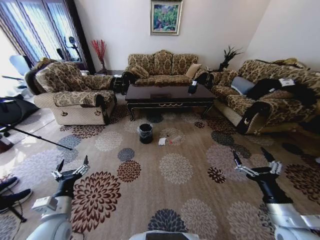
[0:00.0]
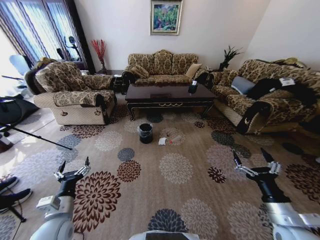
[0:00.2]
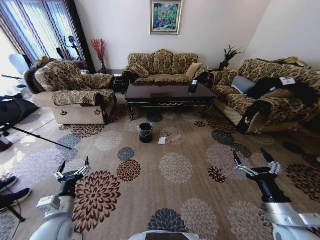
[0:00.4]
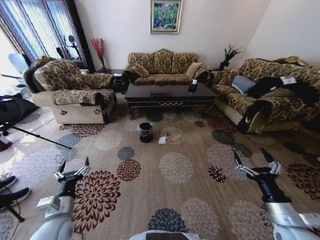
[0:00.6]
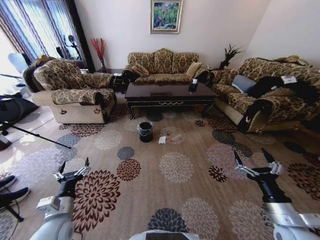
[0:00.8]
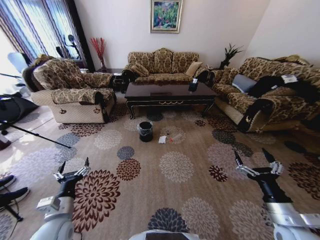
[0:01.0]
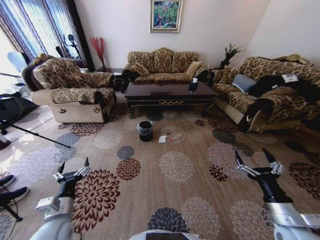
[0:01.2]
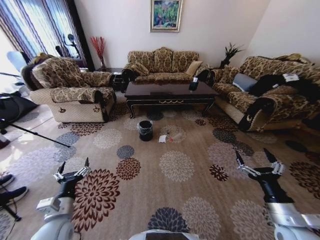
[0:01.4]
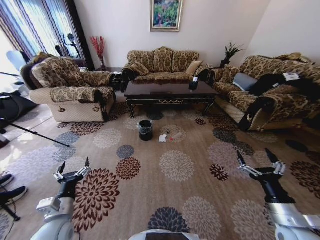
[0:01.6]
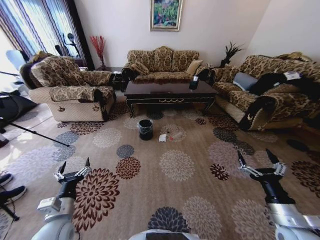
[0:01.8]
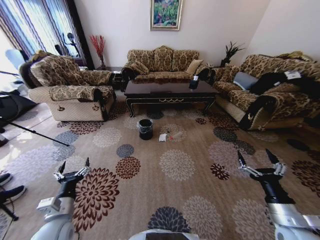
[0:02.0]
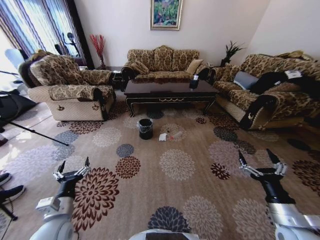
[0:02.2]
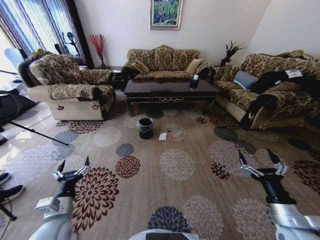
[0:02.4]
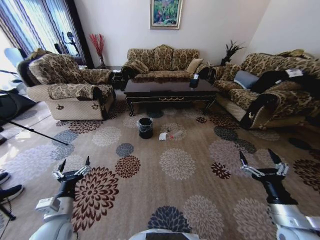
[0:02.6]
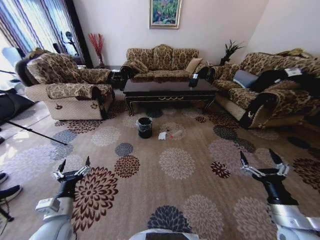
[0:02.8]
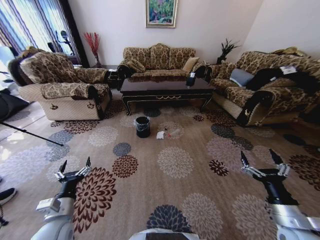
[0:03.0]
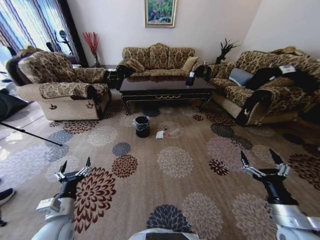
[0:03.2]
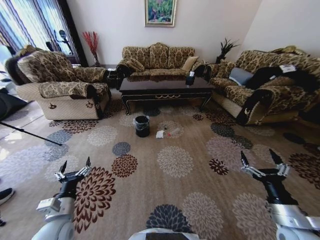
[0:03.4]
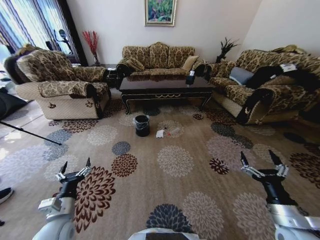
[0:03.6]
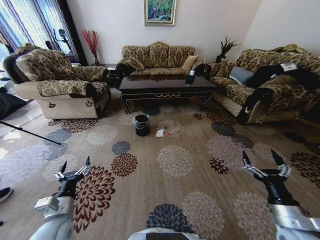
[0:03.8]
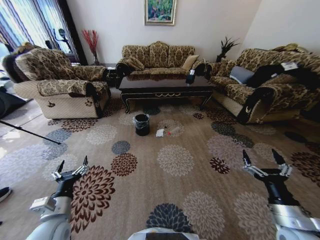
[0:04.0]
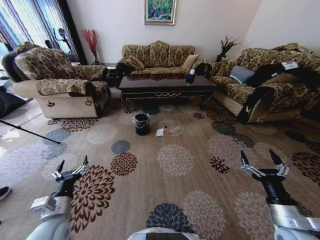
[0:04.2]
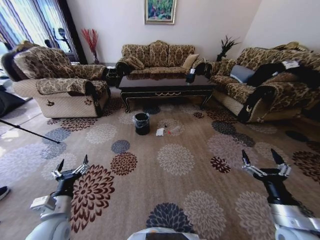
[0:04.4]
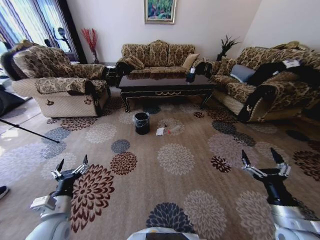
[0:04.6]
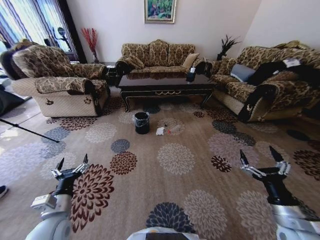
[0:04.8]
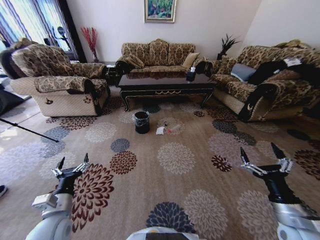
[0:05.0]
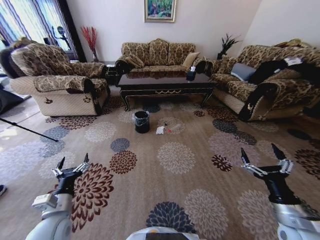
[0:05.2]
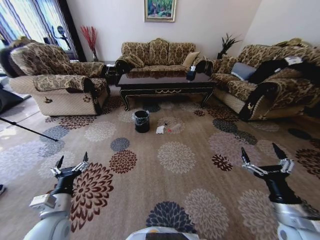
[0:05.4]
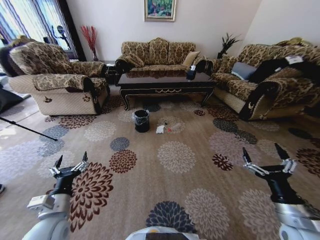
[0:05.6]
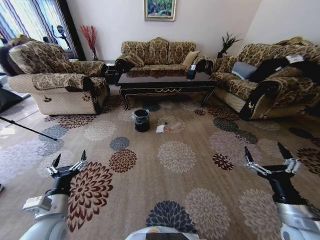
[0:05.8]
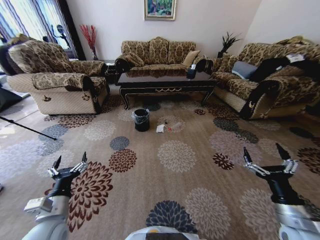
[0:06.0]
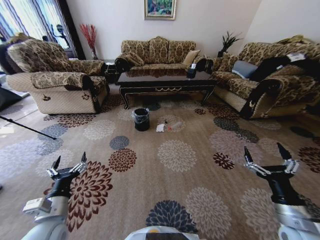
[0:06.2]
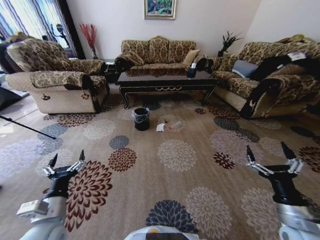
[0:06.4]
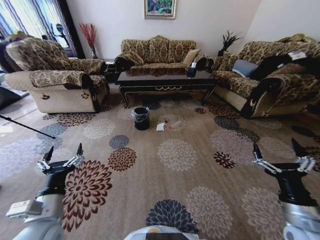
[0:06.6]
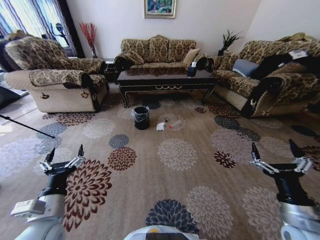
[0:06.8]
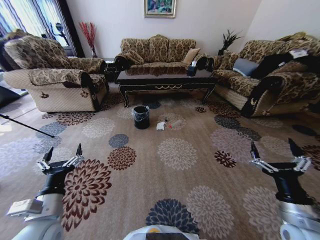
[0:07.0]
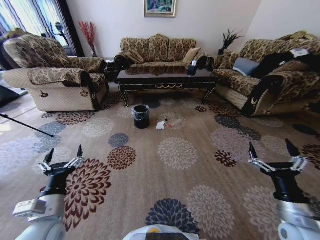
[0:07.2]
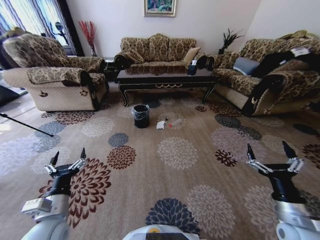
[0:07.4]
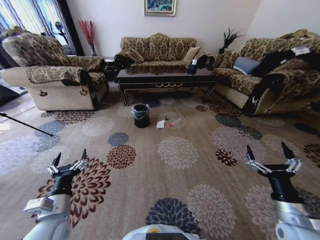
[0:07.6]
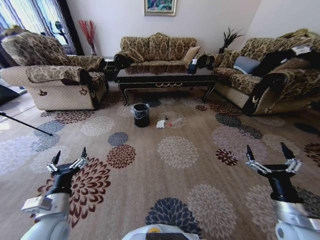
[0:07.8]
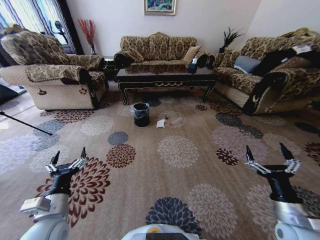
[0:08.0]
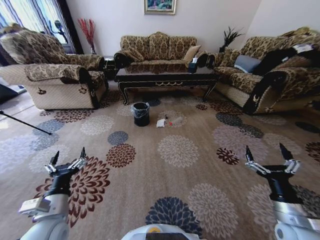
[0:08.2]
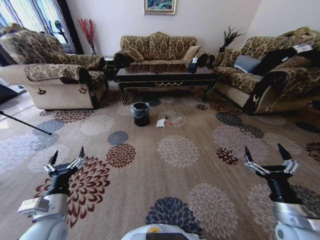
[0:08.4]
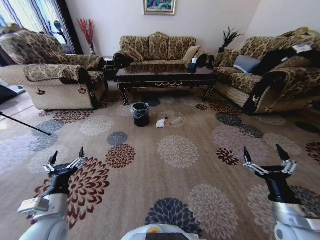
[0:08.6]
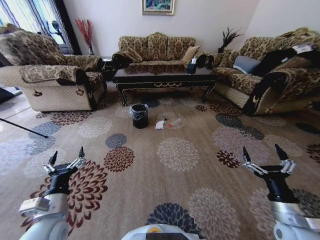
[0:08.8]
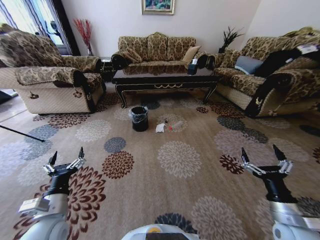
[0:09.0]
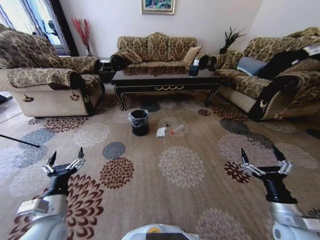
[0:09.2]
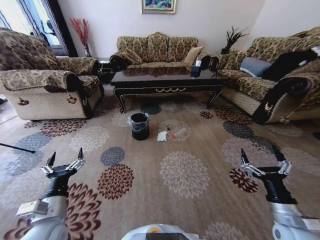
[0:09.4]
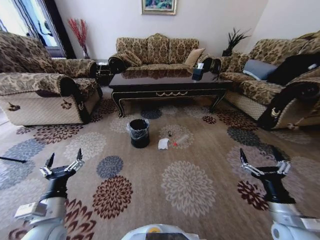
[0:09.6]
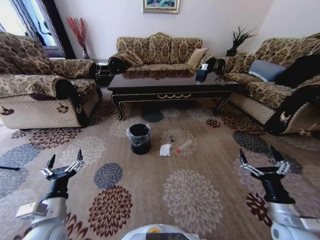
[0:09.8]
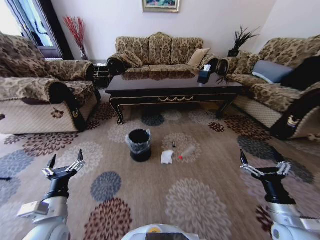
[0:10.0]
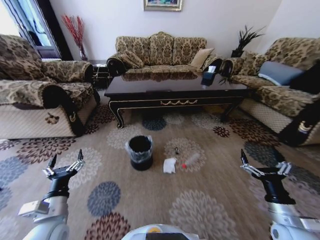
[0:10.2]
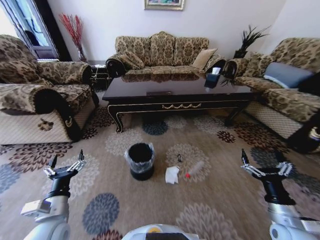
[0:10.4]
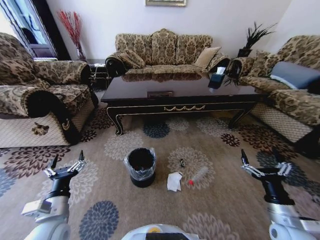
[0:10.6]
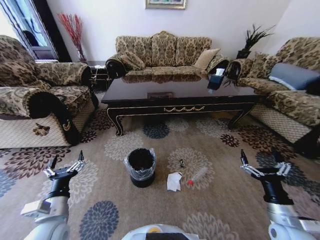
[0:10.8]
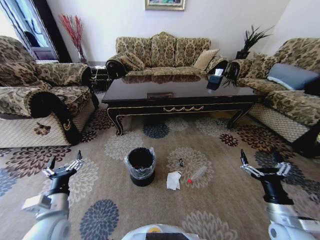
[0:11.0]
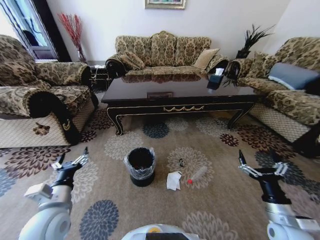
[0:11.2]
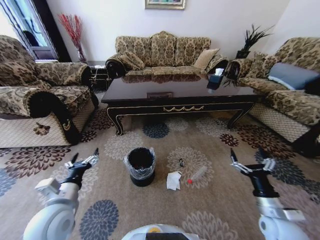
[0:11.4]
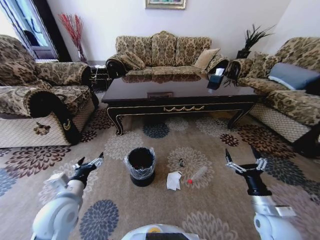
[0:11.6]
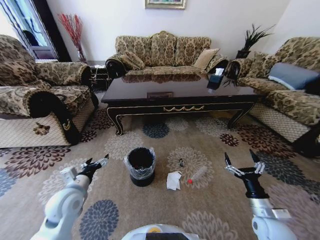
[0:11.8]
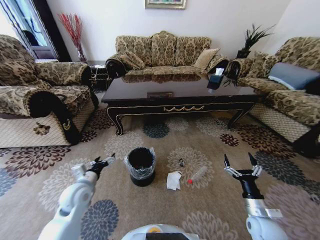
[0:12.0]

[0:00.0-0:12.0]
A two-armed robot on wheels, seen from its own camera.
Task of the whole recording: Move to the front of the table and pick up the trash from the floor, then place it into the trash bin.
0:10.4 to 0:12.0: The left gripper is displaced forward by approximately 10 cm. The right gripper shifts approximately 5 cm downward.

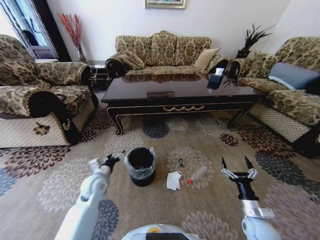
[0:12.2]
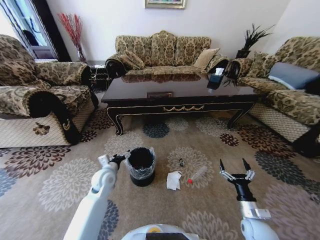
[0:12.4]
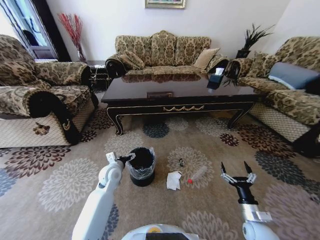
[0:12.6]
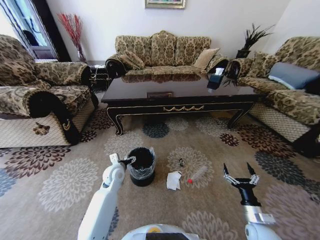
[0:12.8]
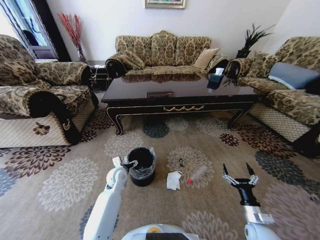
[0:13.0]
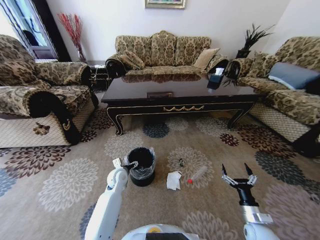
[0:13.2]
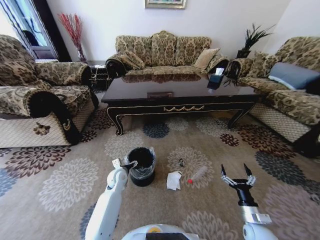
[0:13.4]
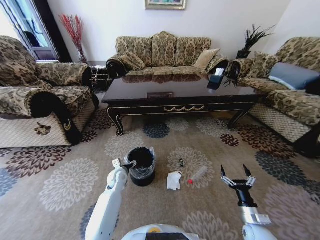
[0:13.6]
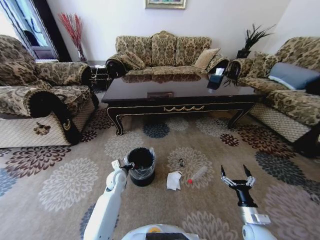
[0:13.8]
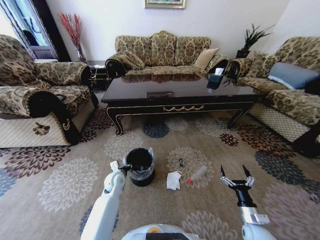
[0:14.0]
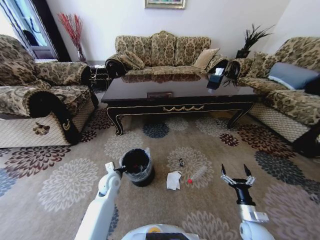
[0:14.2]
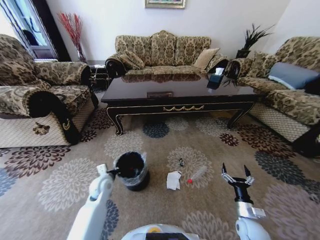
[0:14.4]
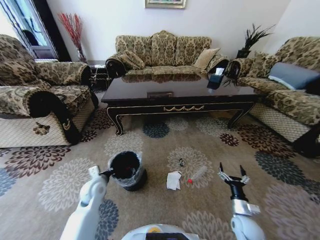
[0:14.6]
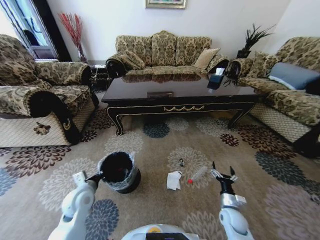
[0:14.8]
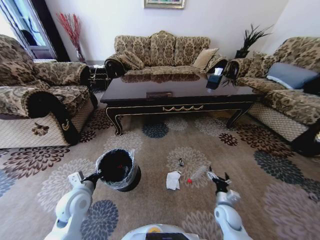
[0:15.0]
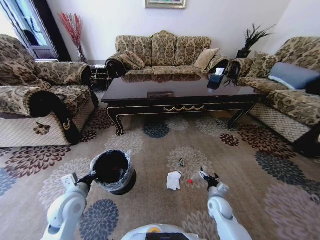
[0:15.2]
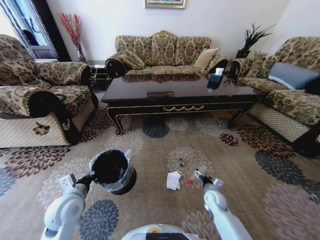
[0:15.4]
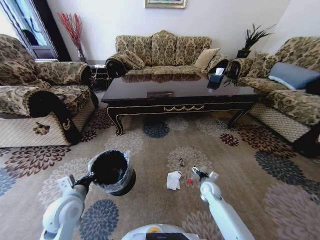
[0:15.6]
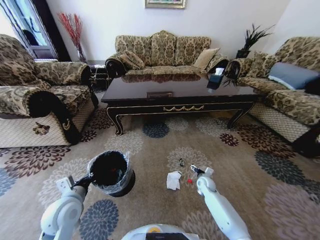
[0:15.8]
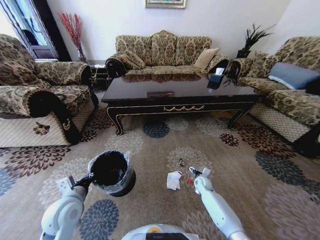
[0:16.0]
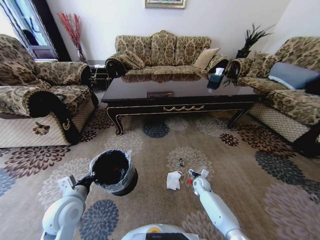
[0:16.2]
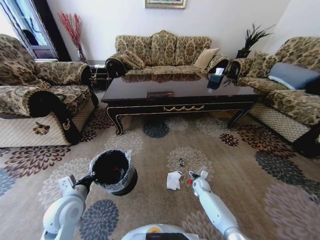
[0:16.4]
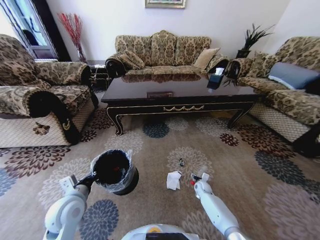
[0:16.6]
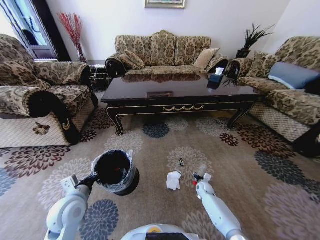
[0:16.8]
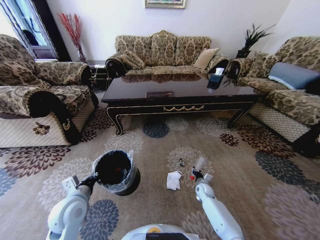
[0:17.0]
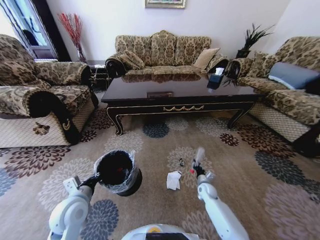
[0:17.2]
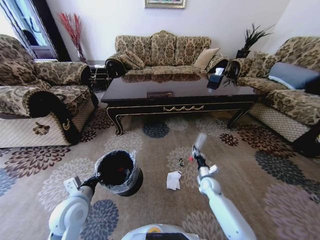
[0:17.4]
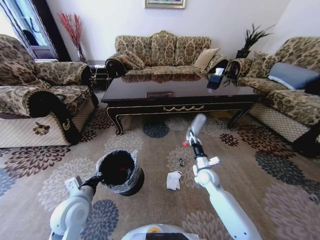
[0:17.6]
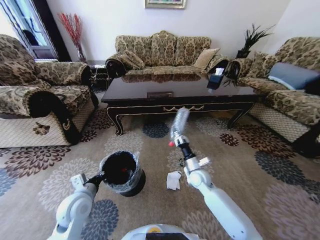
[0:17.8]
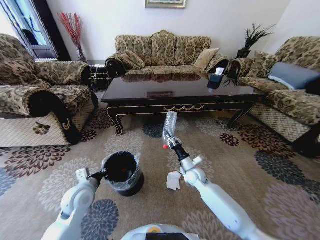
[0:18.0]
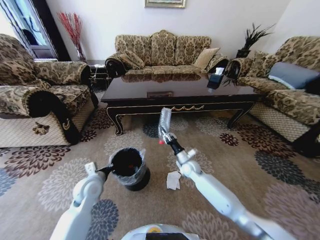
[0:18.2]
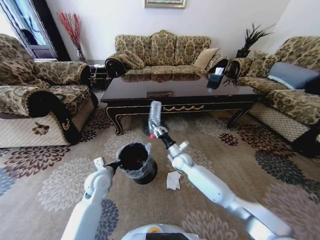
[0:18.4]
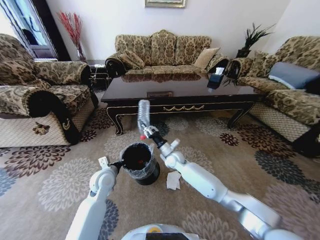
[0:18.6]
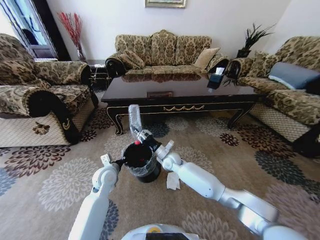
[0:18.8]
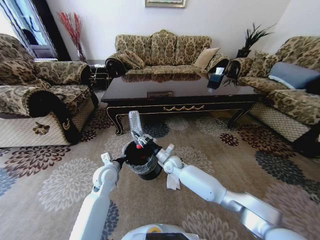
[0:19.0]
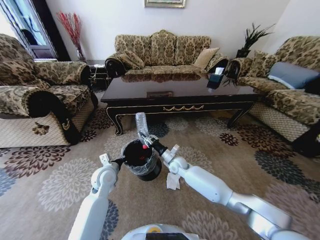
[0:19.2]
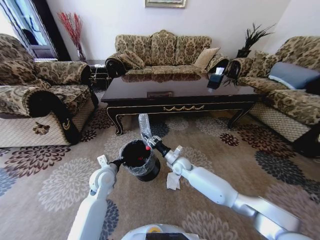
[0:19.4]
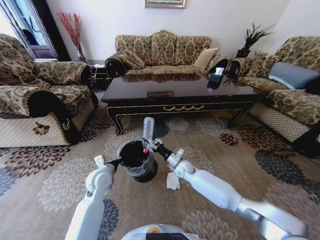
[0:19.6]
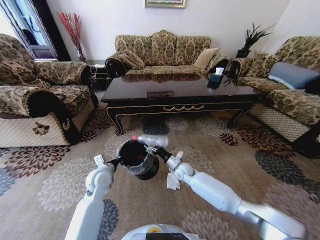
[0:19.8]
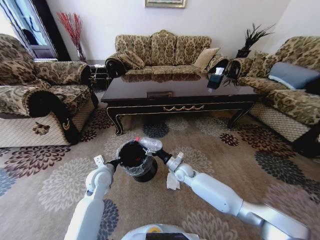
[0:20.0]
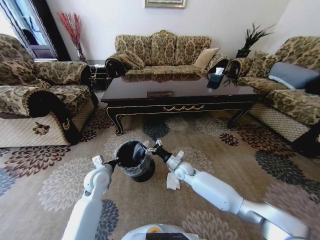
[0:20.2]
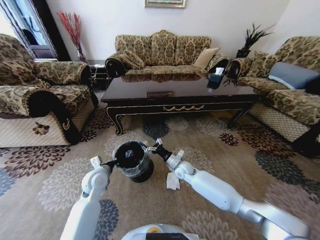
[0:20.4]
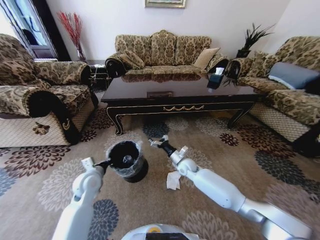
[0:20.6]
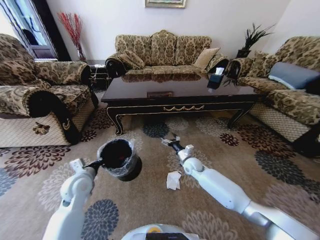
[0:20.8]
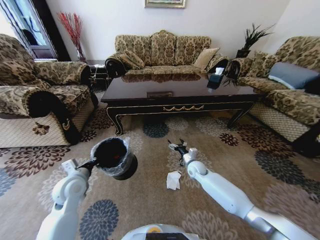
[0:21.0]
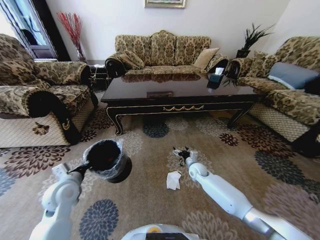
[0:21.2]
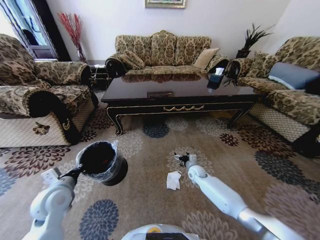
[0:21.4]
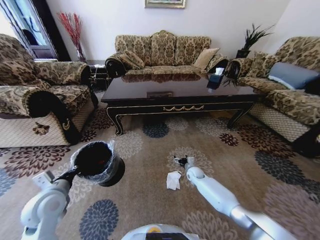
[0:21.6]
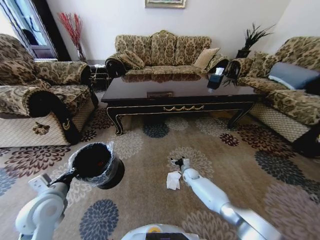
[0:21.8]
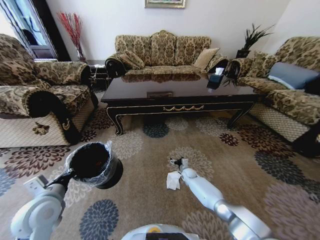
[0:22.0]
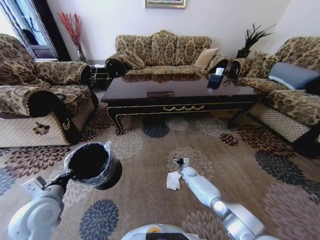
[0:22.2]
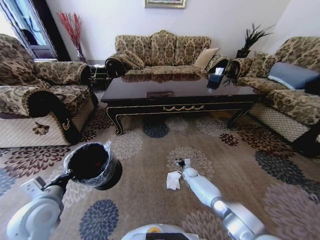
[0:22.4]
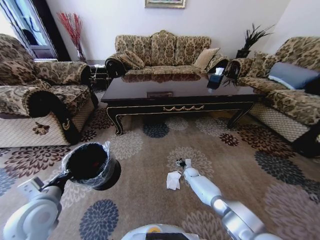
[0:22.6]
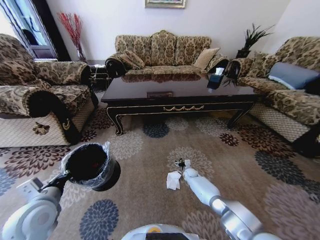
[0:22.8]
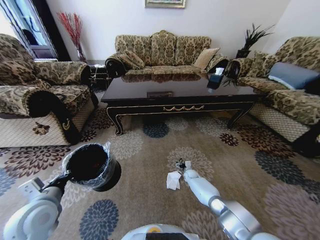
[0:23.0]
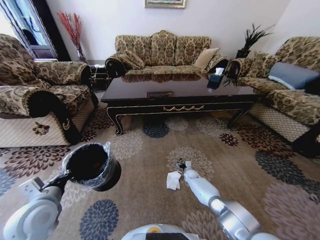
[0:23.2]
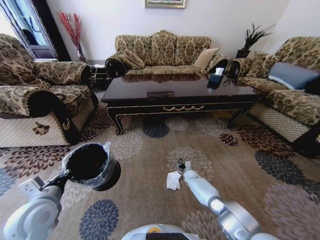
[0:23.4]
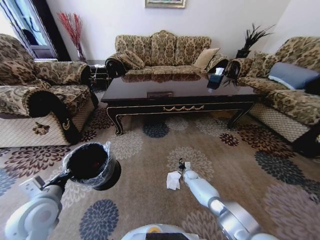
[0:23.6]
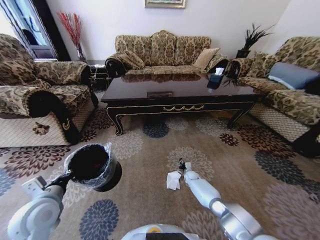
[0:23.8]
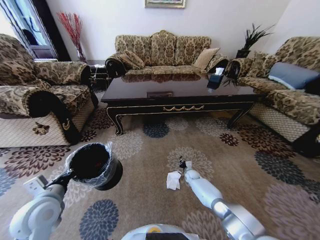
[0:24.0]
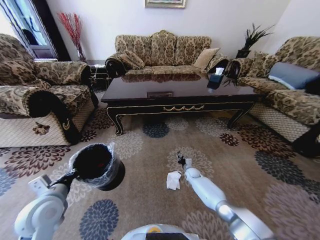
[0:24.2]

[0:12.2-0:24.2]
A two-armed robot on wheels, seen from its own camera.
Task of the whole recording: Move to the front of the table and pick up the trash from the floor, then place it into the trash bin.
0:12.2 to 0:13.8: The left gripper is displaced to the right, downward and forward by approximately 10 cm, and closes.
0:13.8 to 0:15.2: The right gripper shifts about 15 cm forward and to the left; the left gripper goes roughly 20 cm backward, upward and to the left, and closes.
0:15.2 to 0:16.6: The right gripper heads forward and downward, covering roughly 15 cm.
0:16.6 to 0:18.2: The right gripper goes some 20 cm upward and to the left, and closes up; the left gripper moves forward, roughly 10 cm.
0:18.2 to 0:19.8: The right gripper travels to the left and back again, roughly 10 cm each way, and opens its fingers.
0:19.8 to 0:21.2: The left gripper goes some 10 cm to the left and backward. Meanwhile the right gripper heads to the right, covering about 10 cm.
0:21.2 to 0:22.6: The right gripper shifts approximately 15 cm downward. The left gripper travels backward by roughly 5 cm.
0:22.6 to 0:24.2: The right gripper closes.
